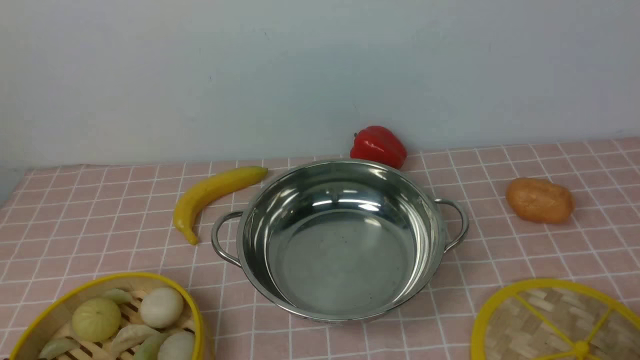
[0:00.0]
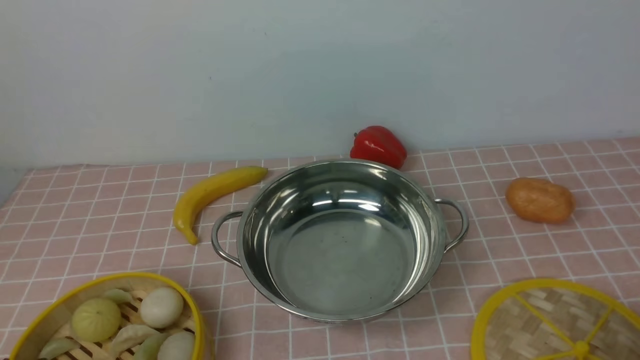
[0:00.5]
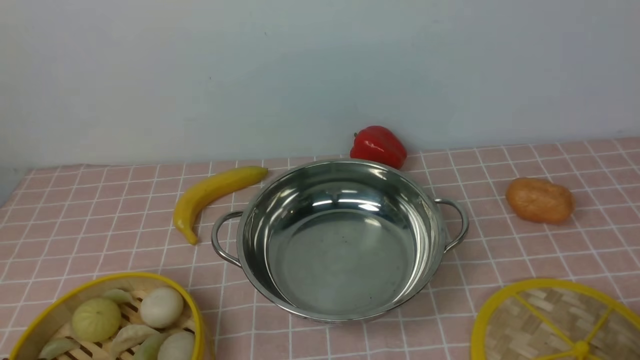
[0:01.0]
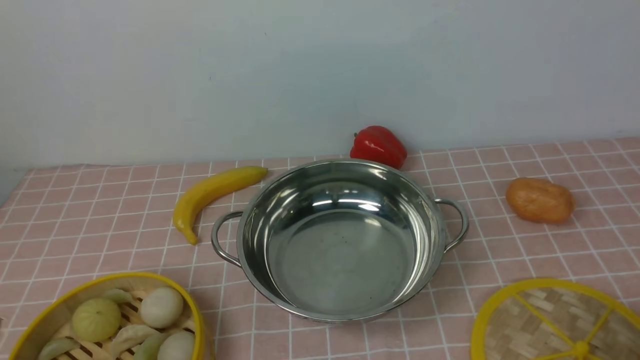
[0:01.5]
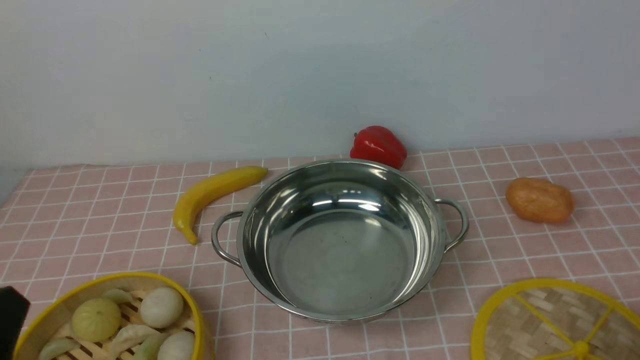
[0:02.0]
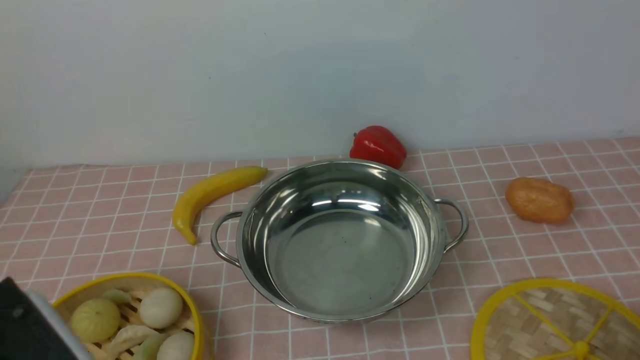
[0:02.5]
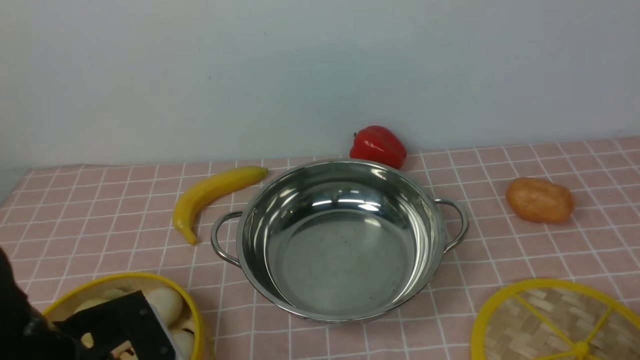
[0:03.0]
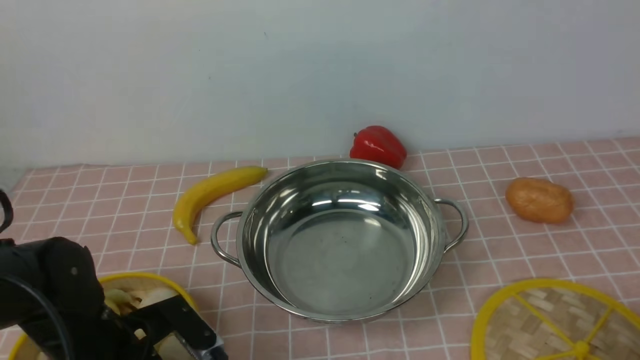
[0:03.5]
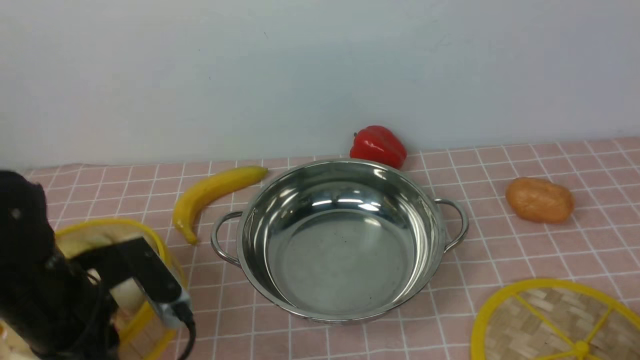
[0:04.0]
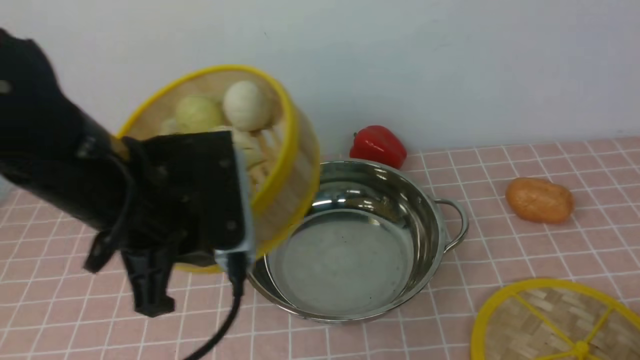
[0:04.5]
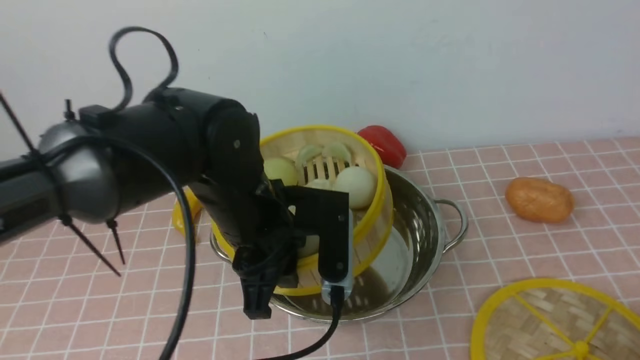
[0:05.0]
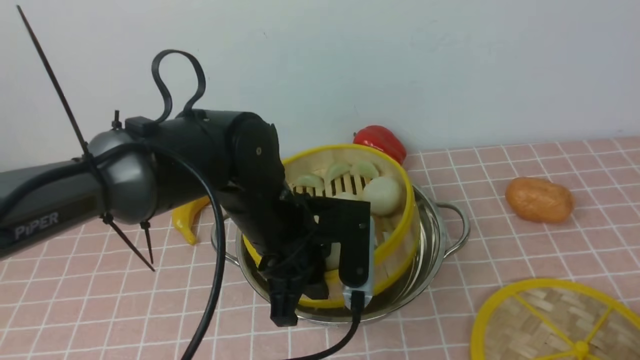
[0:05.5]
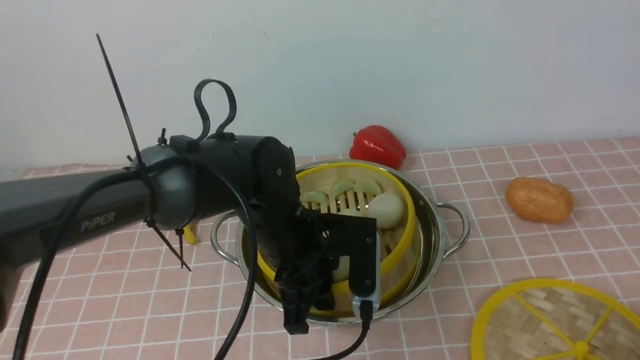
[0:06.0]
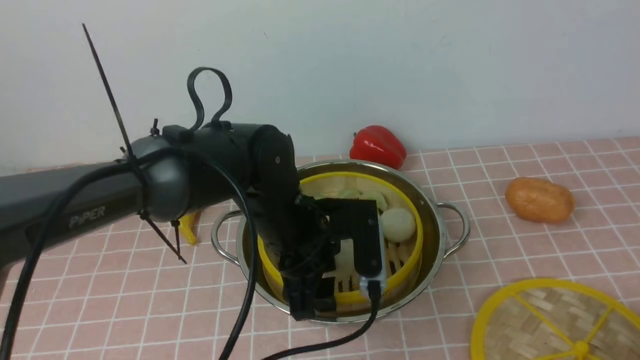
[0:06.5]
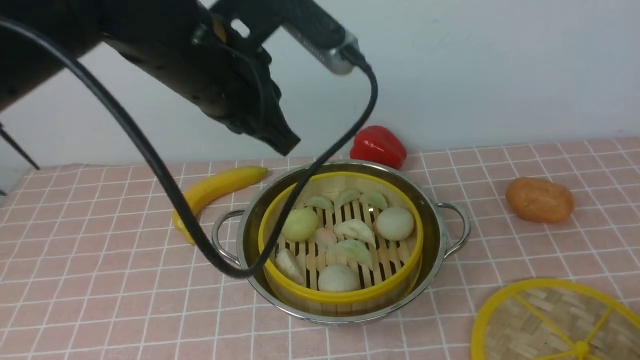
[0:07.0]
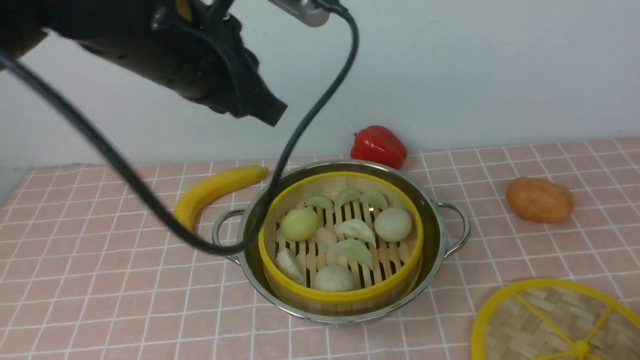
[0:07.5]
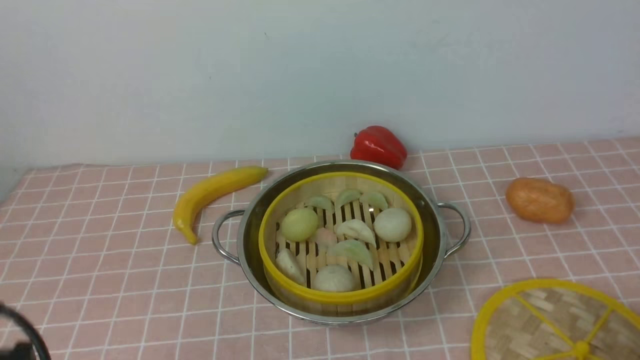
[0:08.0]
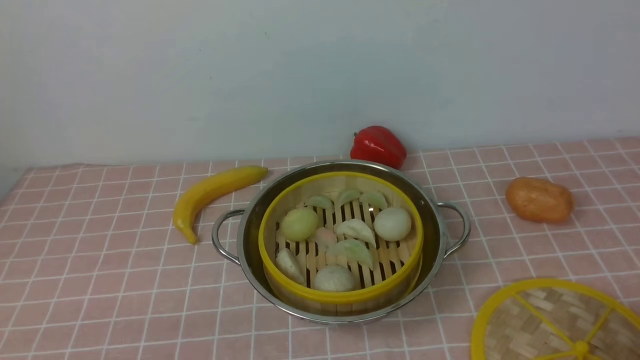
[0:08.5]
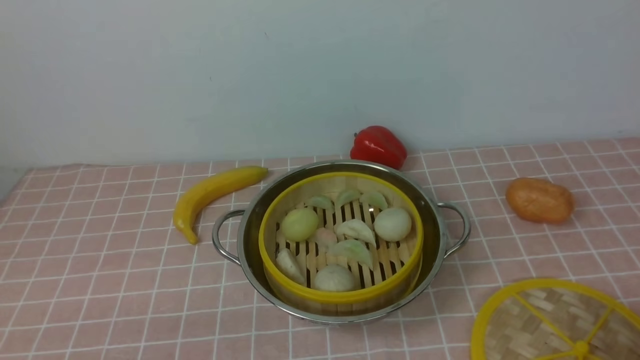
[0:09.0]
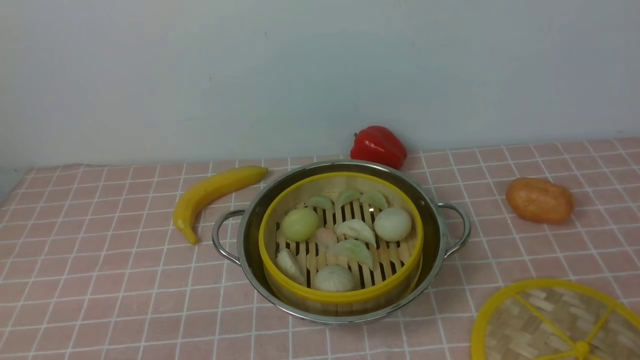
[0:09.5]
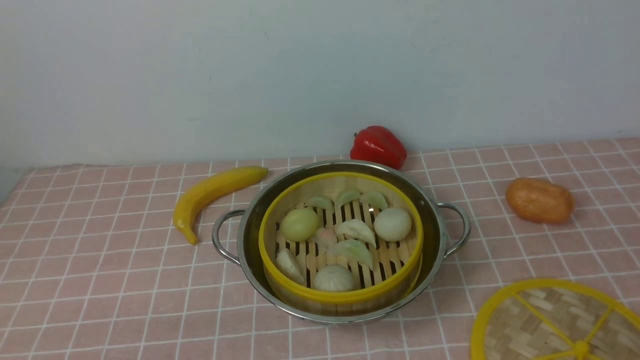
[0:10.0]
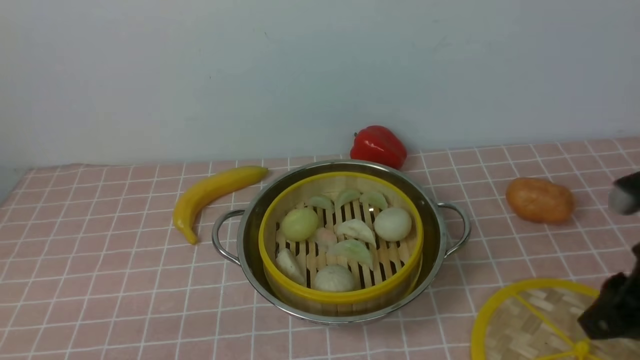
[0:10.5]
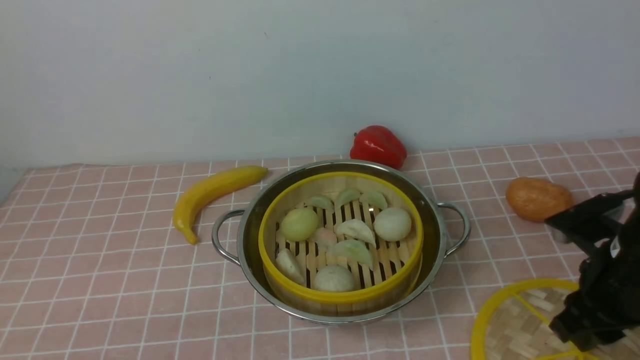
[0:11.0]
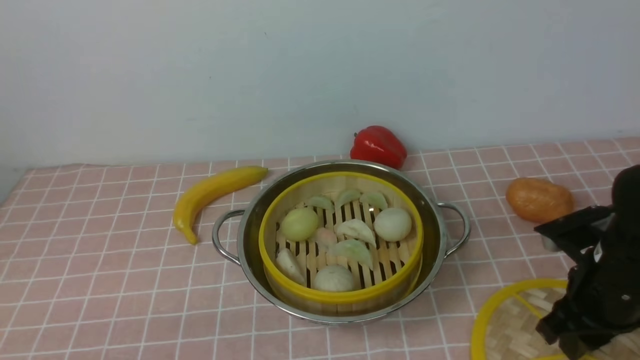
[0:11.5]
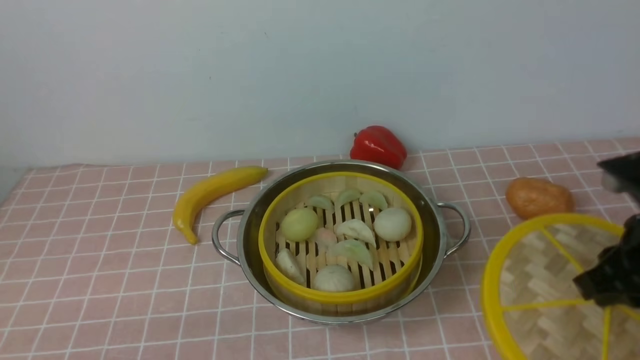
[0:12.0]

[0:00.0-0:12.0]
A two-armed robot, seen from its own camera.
Task of the whole recording: place the steamer in the pot on the pink tablecloth, and put the lid on the steamer.
Step, 0:00.0 to 0:03.5: use the left arm to lift the steamer closest to it.
Step, 0:04.0 to 0:06.5: use the left arm to put the steamer into the iron steamer pot in the middle.
Step, 0:07.0 to 0:11.5: use the right arm to lift the lid of the steamer.
0:00.0 to 0:02.0: The left gripper goes some 10 cm upward.
0:02.0 to 0:04.0: The left gripper is displaced forward by roughly 15 cm, and closes up.
0:04.0 to 0:06.0: The left gripper goes some 20 cm to the right and forward.
0:06.0 to 0:08.0: The left gripper travels backward, to the left and upward by approximately 30 cm, and opens, then closes again.
0:08.0 to 0:10.0: The left gripper goes about 10 cm downward, while the right gripper moves upward, some 15 cm.
0:10.0 to 0:12.0: The right gripper is displaced forward by about 20 cm.

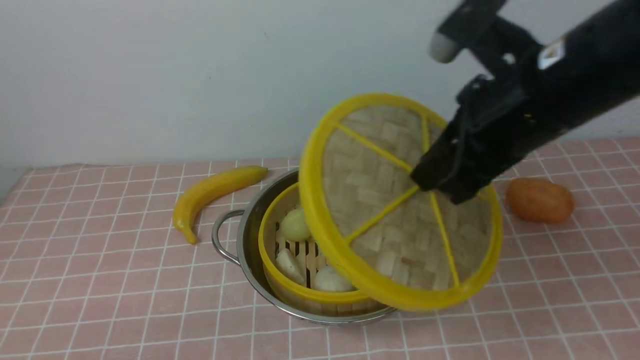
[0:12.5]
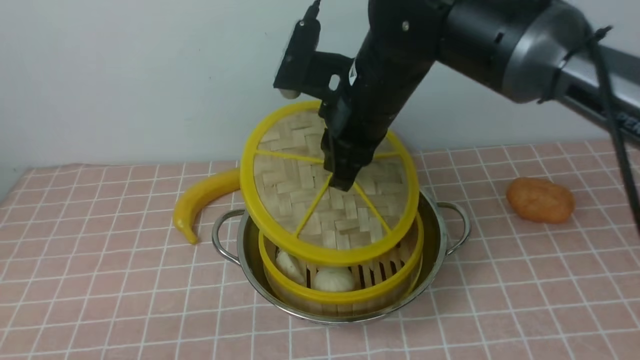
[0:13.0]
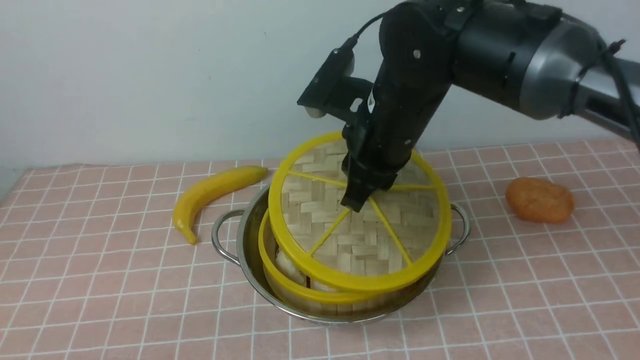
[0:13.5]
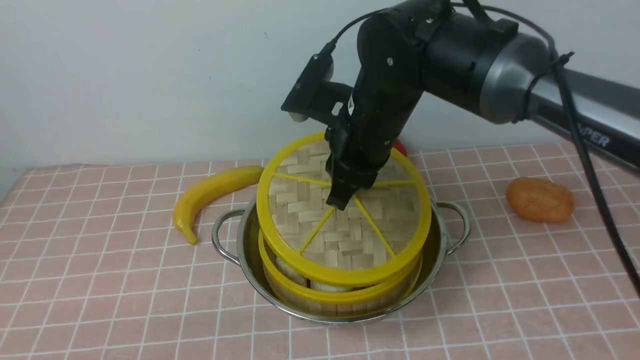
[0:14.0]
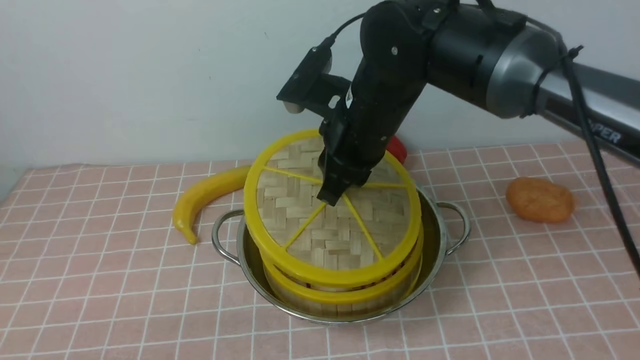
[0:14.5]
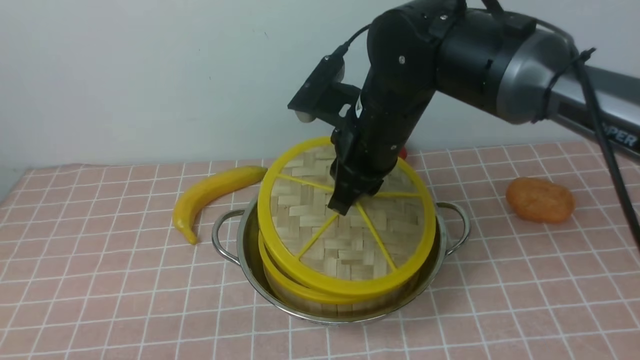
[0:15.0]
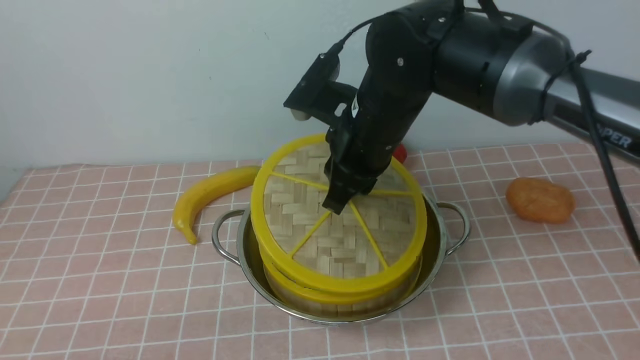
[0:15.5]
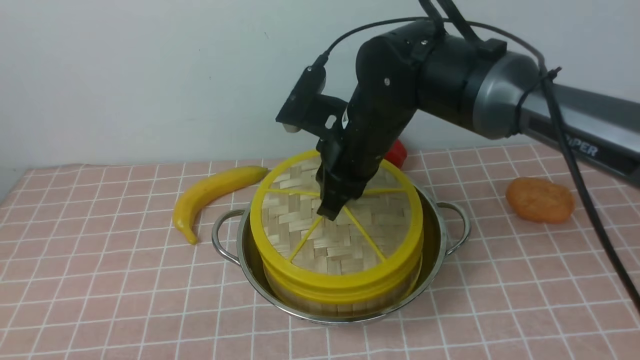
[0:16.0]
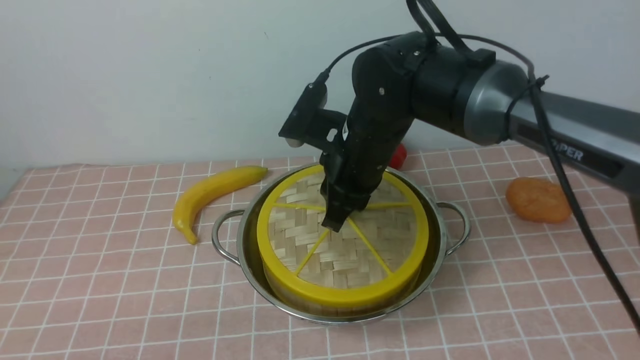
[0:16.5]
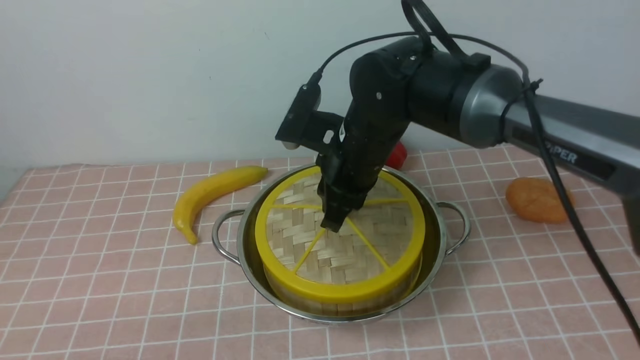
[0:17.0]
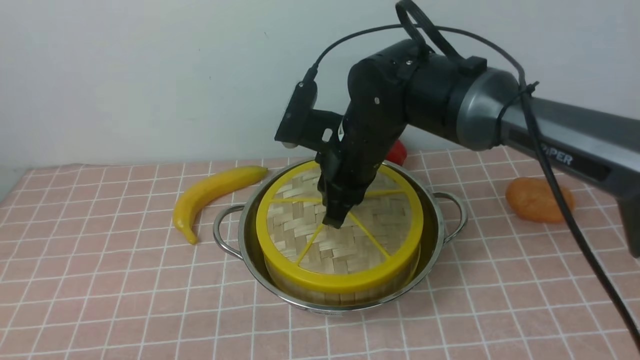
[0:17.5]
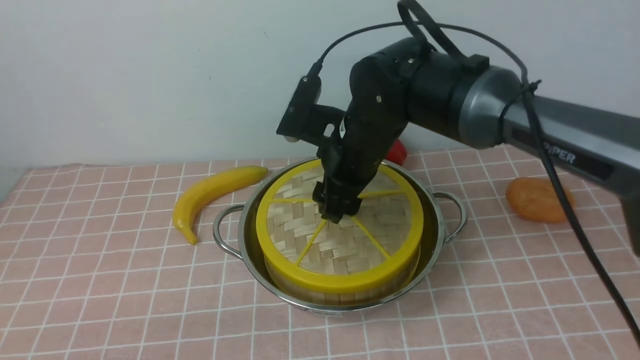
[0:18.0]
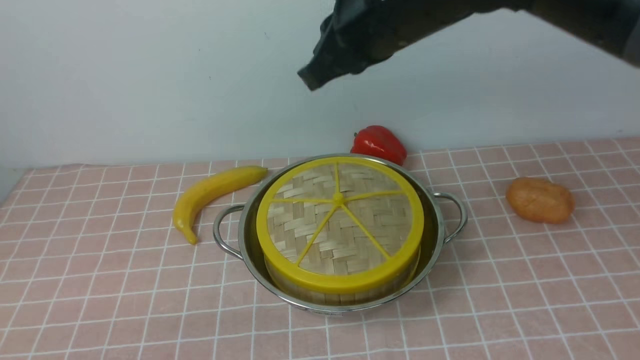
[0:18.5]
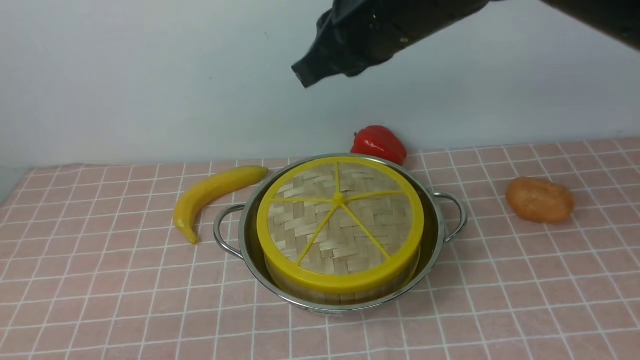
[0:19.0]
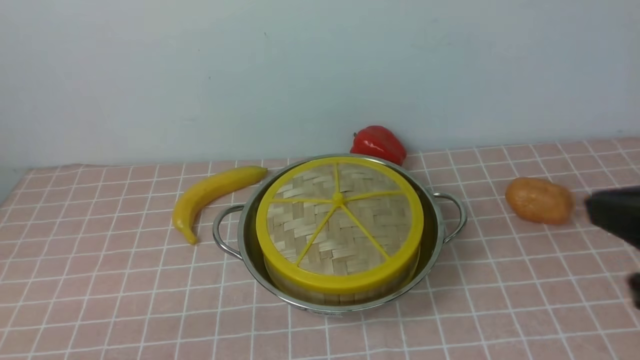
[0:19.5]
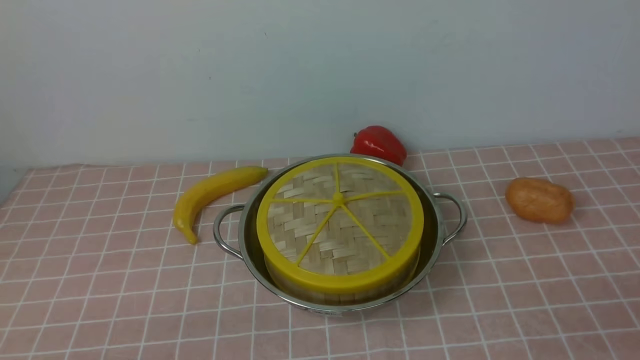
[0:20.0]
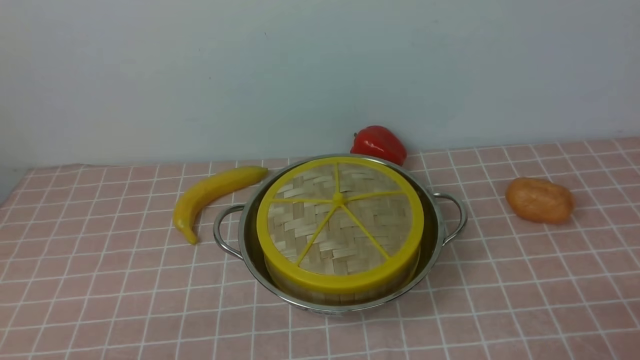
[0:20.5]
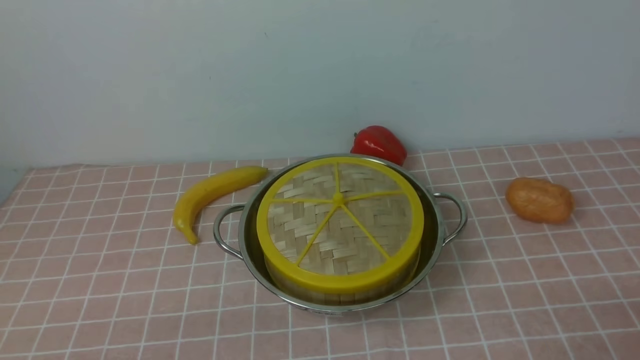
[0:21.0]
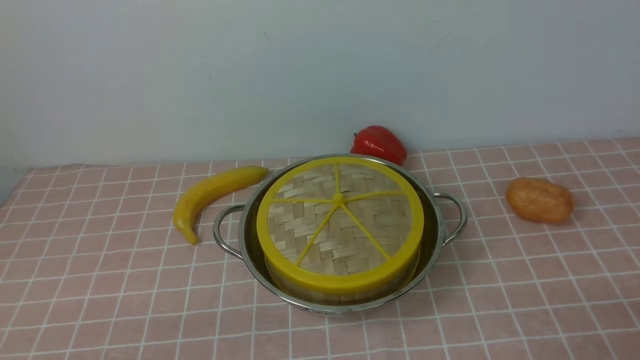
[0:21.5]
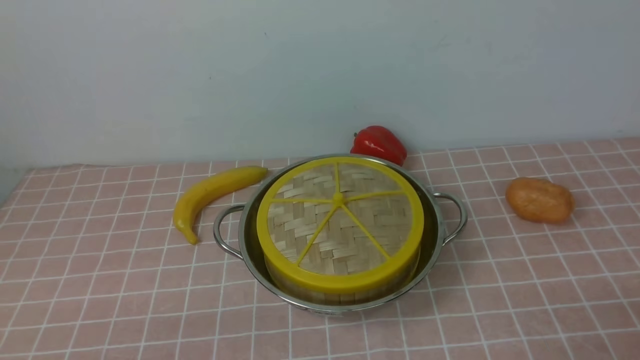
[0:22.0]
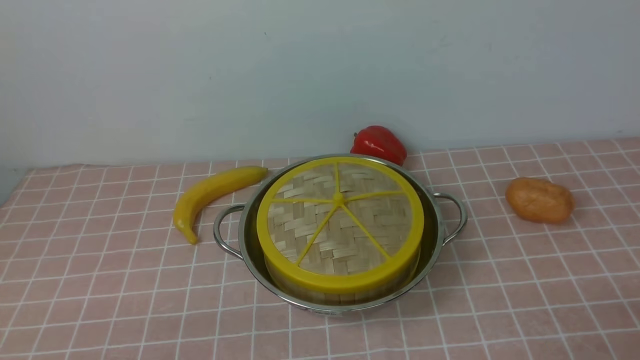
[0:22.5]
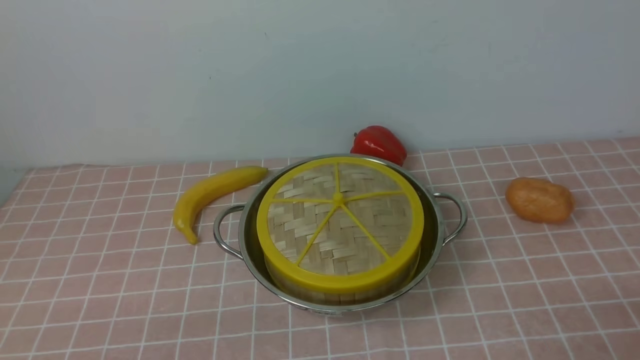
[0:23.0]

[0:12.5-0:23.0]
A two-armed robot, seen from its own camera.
Task of the whole recording: place the steamer in the pot on the pink tablecloth, and put the lid on the steamer.
Step, 0:12.5 to 0:18.0: use the right arm to place the steamer lid on the steamer.
0:12.5 to 0:14.5: The right gripper shifts about 15 cm to the left, forward and downward.
0:14.5 to 0:16.5: The grippers move only a little.
0:16.5 to 0:19.0: The right gripper heads upward and backward, covering some 15 cm, and closes up.
0:19.0 to 0:21.0: The right gripper is displaced backward, to the right and downward by approximately 40 cm, and opens.
0:21.0 to 0:23.0: Both grippers stay put.
